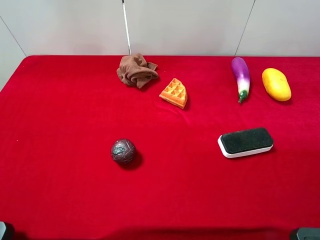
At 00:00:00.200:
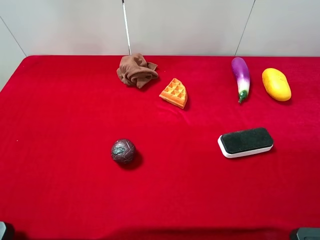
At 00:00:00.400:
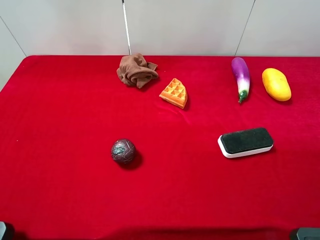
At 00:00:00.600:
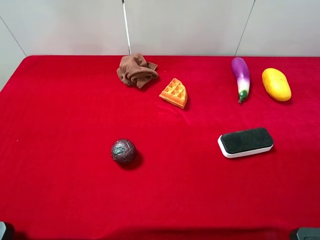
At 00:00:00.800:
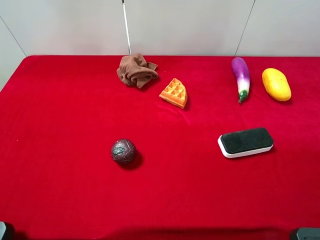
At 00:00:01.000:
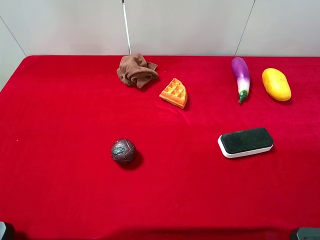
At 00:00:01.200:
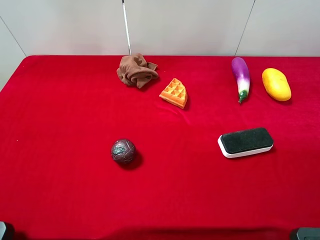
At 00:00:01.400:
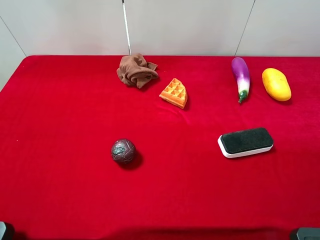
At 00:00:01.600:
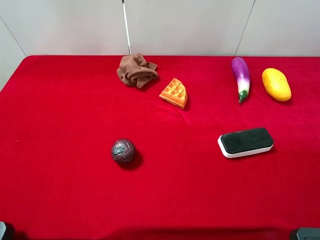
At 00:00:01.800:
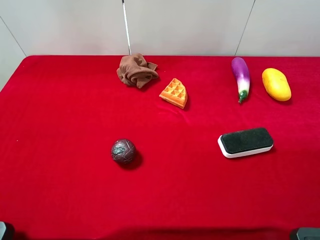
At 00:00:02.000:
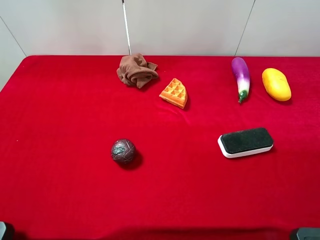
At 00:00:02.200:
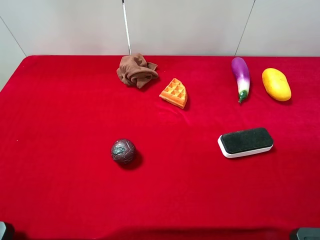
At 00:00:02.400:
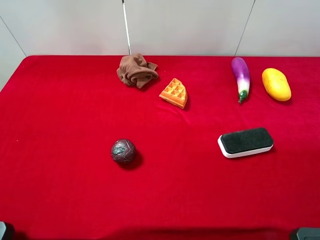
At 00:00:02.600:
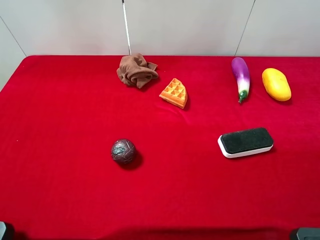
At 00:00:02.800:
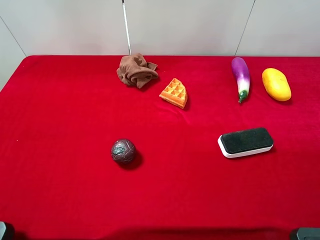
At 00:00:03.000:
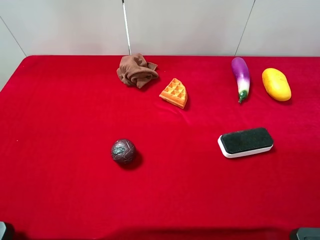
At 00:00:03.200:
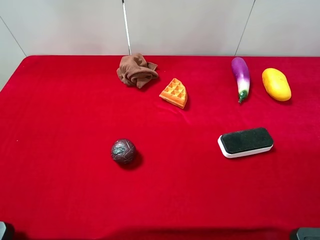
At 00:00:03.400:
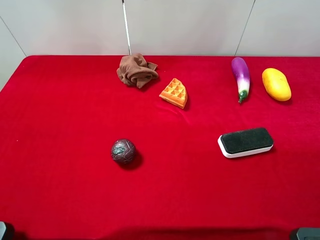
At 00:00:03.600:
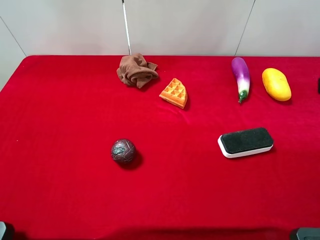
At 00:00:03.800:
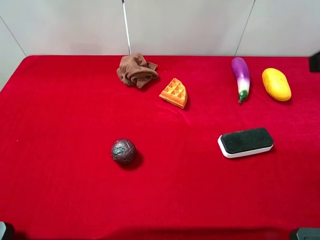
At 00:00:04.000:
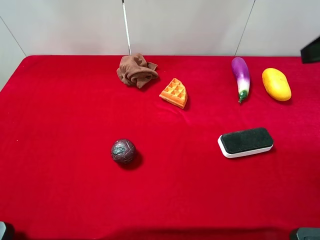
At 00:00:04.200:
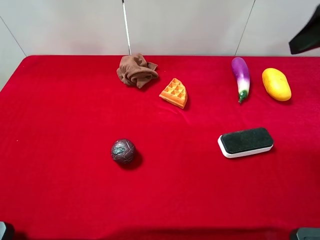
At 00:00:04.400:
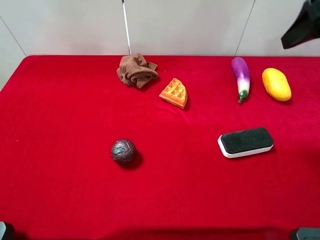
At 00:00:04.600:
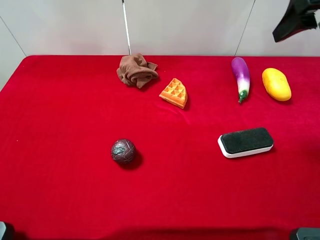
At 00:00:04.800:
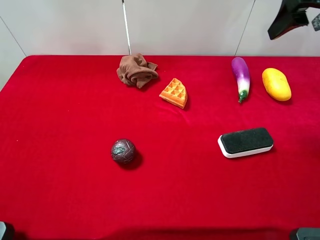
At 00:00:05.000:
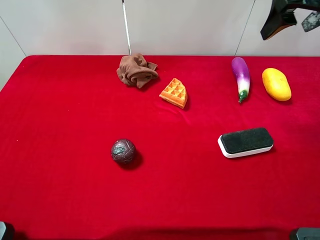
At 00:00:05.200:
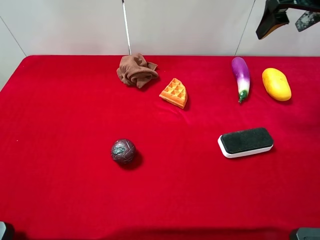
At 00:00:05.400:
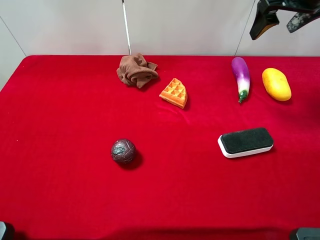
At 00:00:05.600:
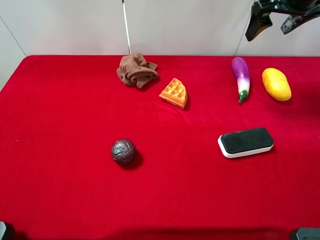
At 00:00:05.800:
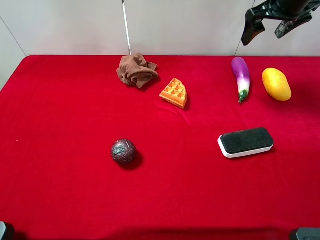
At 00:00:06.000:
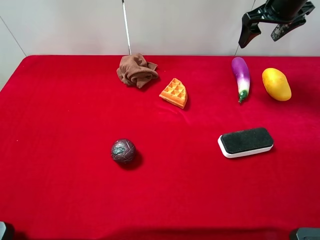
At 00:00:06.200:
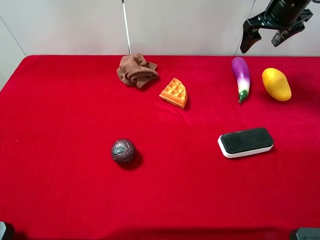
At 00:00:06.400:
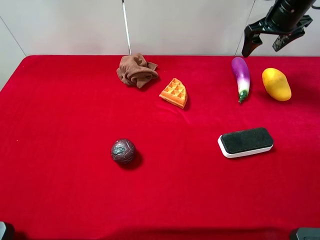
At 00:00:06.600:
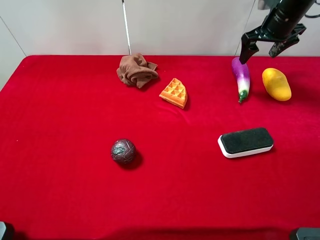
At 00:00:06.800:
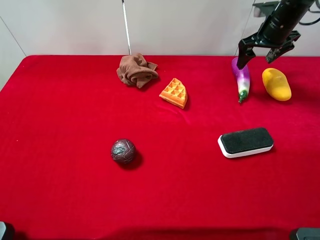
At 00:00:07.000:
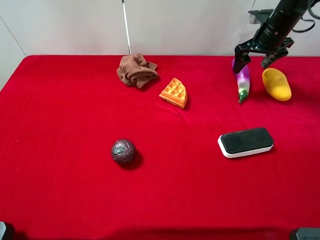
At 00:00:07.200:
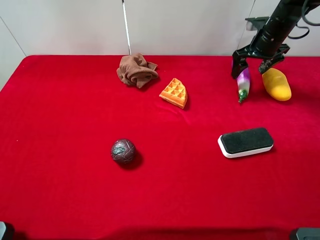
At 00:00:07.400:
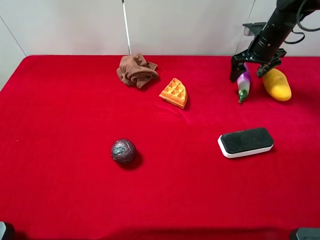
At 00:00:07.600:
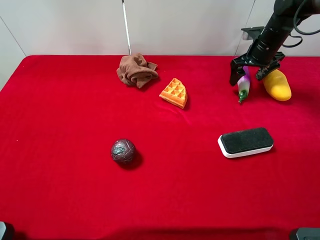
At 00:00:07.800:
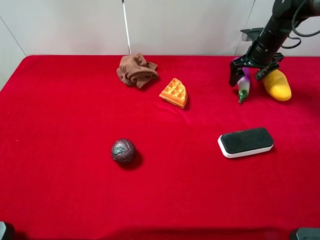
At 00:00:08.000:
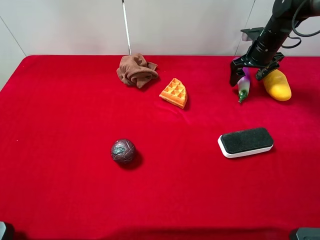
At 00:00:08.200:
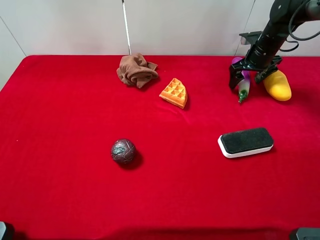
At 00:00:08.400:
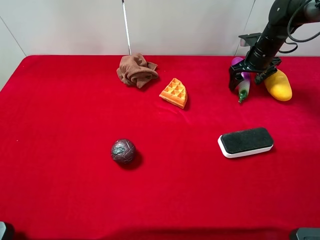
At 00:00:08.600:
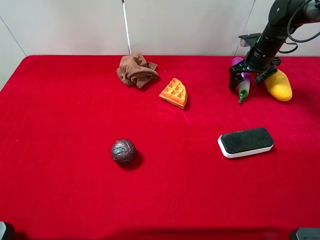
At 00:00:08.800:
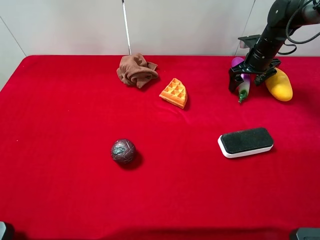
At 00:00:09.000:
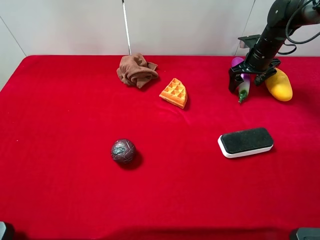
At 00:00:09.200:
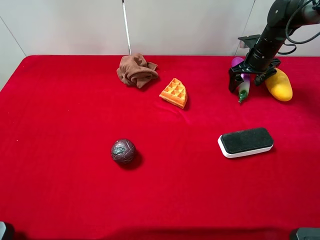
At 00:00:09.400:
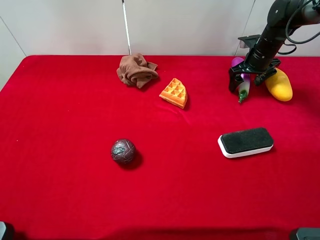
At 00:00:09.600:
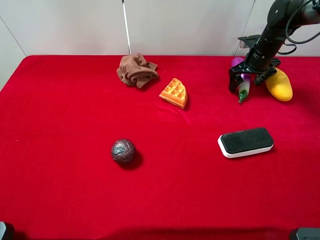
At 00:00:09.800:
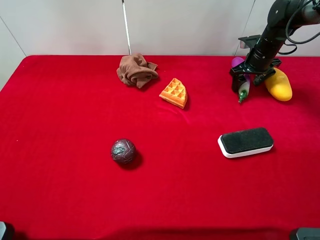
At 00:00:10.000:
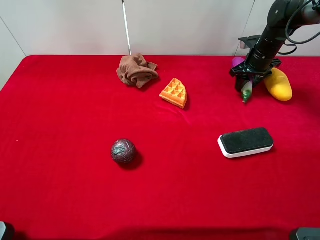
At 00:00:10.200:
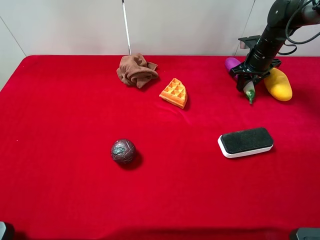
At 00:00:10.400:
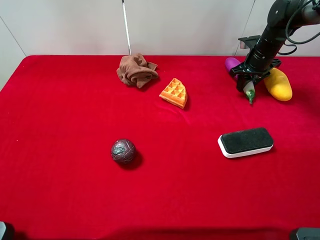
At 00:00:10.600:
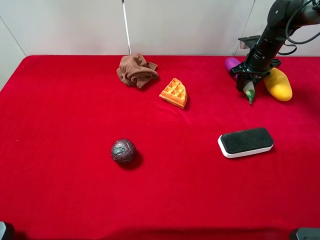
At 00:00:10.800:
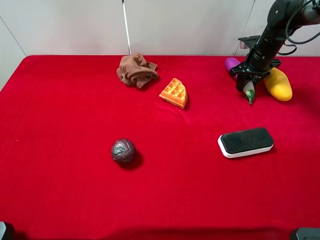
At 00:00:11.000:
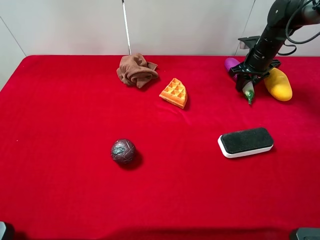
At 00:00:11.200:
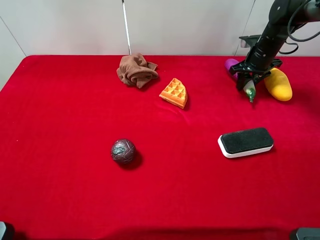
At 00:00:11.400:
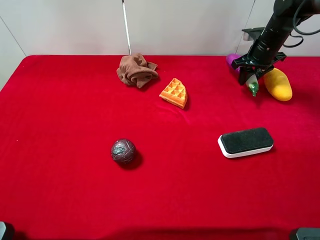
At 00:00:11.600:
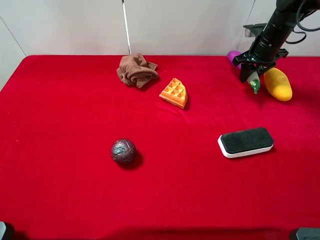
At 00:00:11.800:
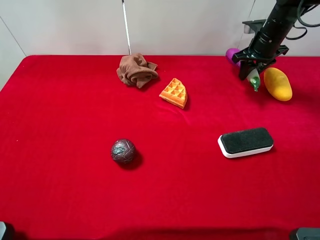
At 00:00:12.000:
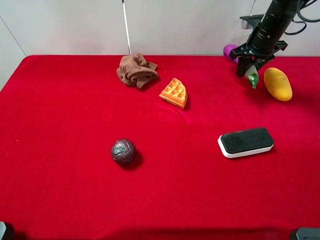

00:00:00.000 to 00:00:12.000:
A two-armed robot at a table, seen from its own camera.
Task of the whole recording: the gripper move the object.
Step, 00:00:00.000 to 00:00:10.400: Grasp the eggplant with the right gripper.
00:00:00.000 to 00:00:01.600: Neither gripper changes place.
00:00:03.000 to 00:00:04.400: The right gripper heads forward, covering roughly 20 cm.
00:00:04.400 to 00:00:06.000: The right gripper heads forward and downward, covering approximately 20 cm.
00:00:06.000 to 00:00:07.600: The right gripper goes roughly 15 cm downward.
00:00:07.600 to 00:00:09.000: The grippers make only small movements.
00:00:09.000 to 00:00:10.400: The right gripper closes.
00:00:10.400 to 00:00:12.000: The right gripper moves upward, approximately 5 cm.

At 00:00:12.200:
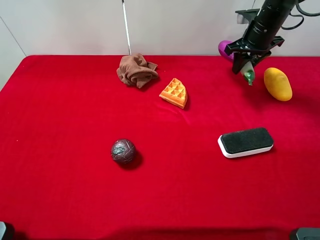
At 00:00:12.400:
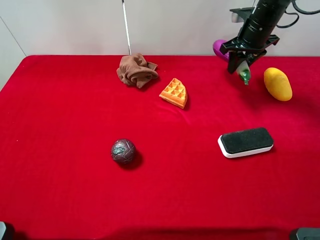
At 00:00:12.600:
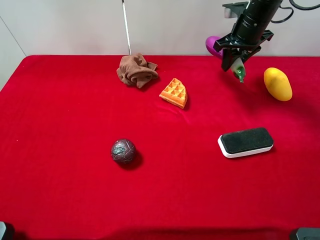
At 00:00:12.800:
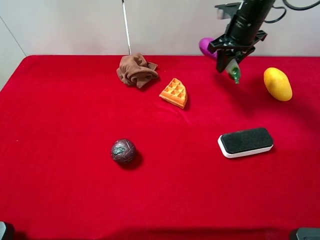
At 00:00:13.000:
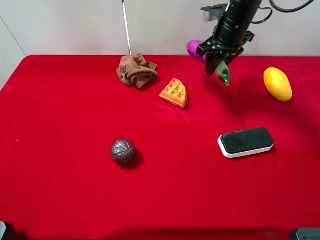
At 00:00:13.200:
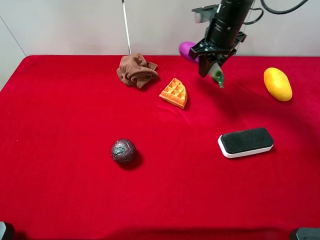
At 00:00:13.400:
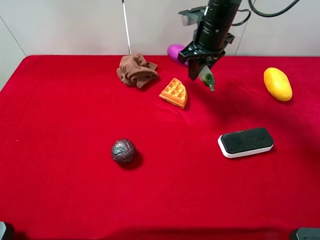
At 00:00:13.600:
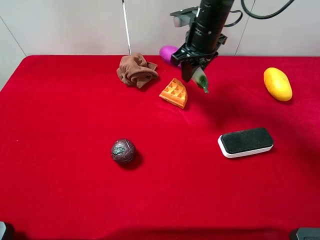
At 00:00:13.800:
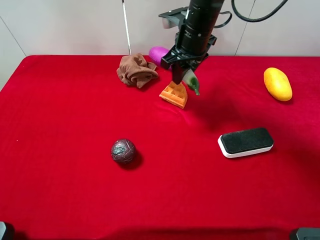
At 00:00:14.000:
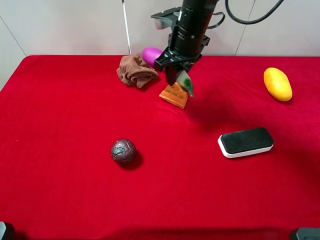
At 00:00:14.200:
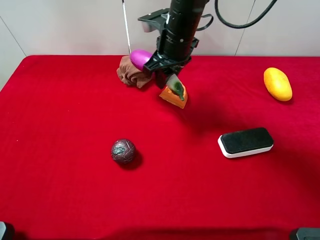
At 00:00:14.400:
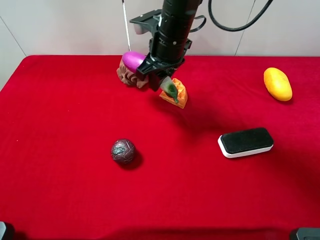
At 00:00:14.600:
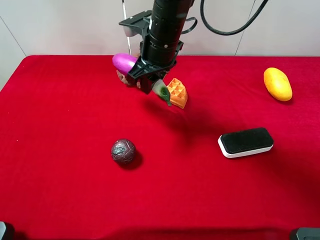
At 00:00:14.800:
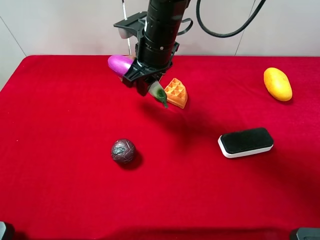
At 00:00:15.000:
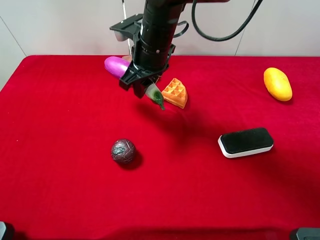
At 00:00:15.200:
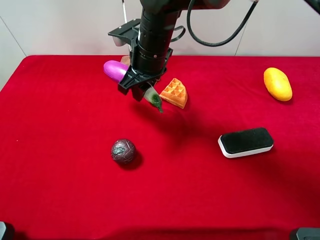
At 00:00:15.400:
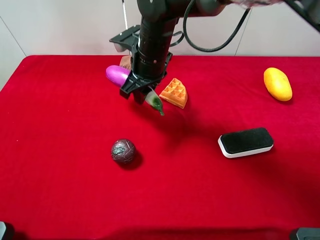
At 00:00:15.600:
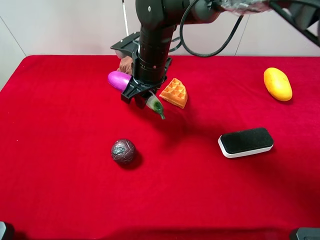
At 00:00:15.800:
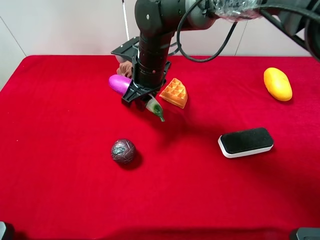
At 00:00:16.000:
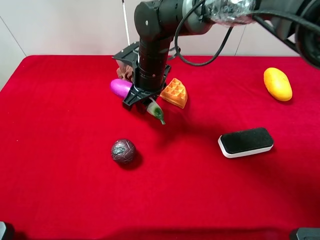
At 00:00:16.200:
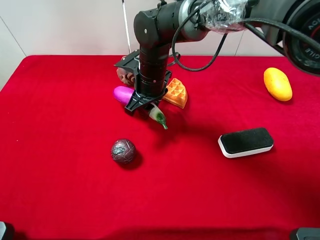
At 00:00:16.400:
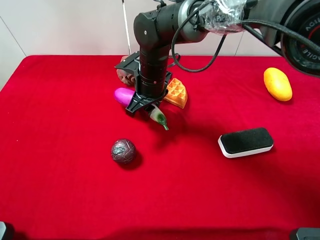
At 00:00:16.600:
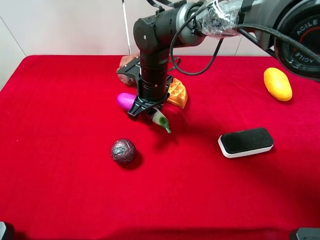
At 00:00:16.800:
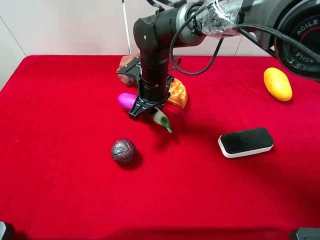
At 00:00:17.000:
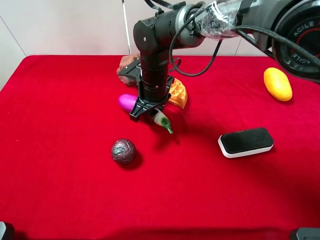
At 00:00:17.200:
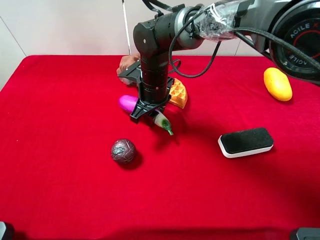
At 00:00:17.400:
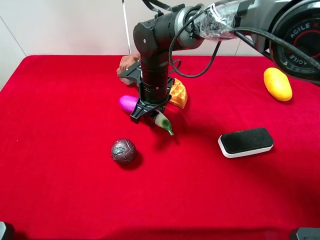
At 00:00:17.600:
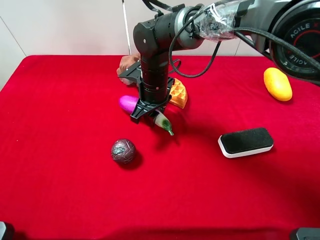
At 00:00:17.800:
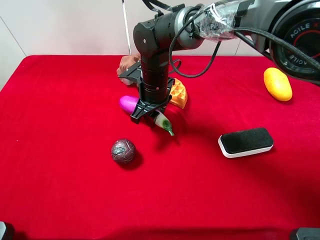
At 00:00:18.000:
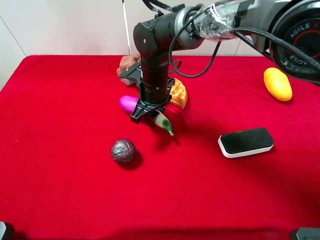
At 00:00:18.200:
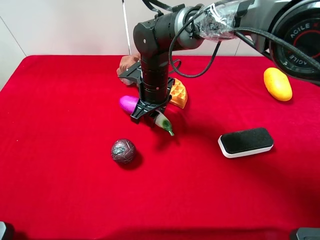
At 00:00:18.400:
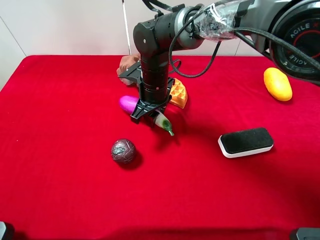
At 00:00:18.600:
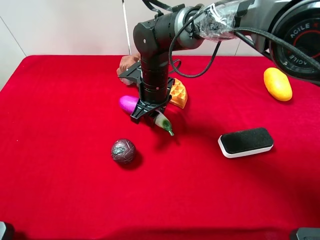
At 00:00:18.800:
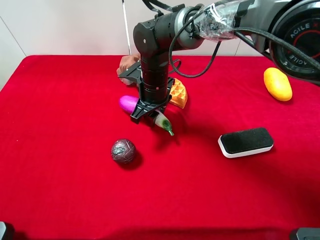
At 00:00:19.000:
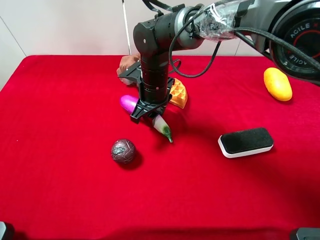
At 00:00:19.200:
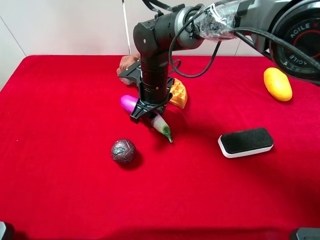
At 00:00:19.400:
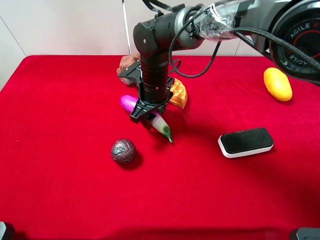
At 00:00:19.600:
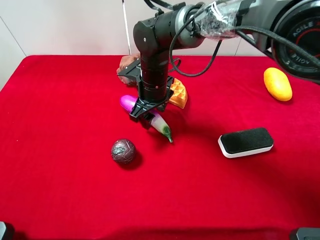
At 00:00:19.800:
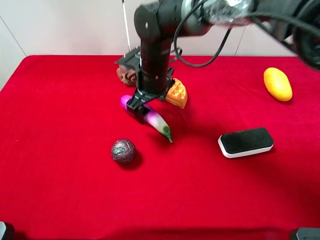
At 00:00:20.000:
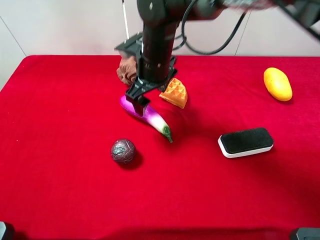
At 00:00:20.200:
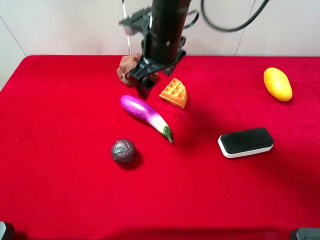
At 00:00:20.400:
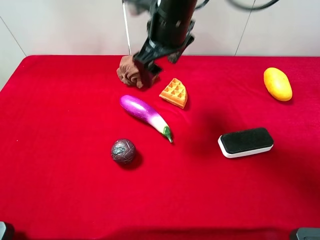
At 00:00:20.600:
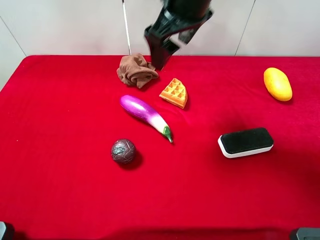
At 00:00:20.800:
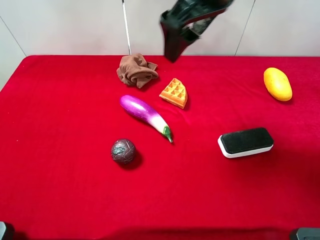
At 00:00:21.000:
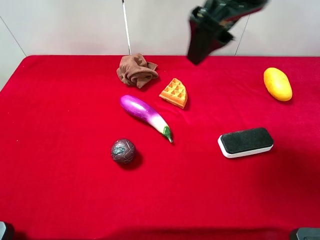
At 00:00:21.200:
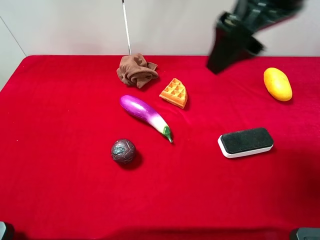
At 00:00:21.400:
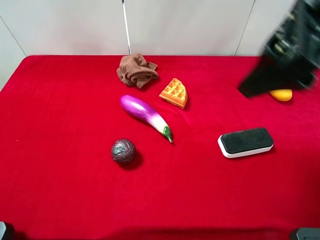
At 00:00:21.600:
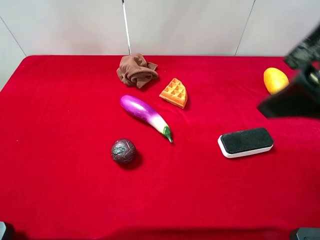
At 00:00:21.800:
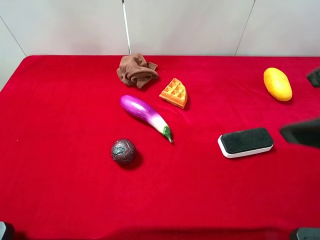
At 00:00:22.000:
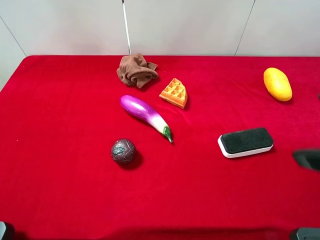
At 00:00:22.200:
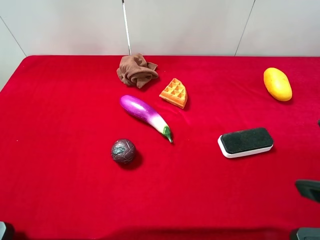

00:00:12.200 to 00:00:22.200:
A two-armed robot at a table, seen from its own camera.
Task of the whole recording: the gripper move the object.
Step, 00:00:12.200 to 00:00:20.200: Place the eggplant on the table with the right gripper.
00:00:12.200 to 00:00:13.600: The right gripper shifts approximately 15 cm to the left and backward.
00:00:13.600 to 00:00:15.000: The right gripper goes about 10 cm to the left and backward.
00:00:15.000 to 00:00:16.400: The right gripper is displaced downward by approximately 10 cm.
00:00:16.400 to 00:00:18.000: The grippers stay close to where they were, moving slightly.
00:00:18.000 to 00:00:19.400: The right gripper opens its fingers.
00:00:19.400 to 00:00:20.800: The right gripper is displaced upward by approximately 25 cm, and opens.
00:00:20.800 to 00:00:22.200: The right gripper shifts approximately 30 cm backward and to the right.
